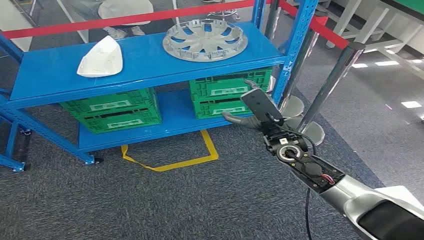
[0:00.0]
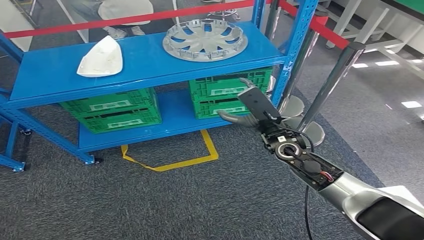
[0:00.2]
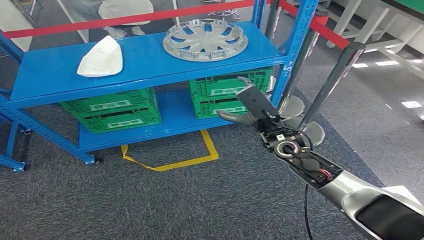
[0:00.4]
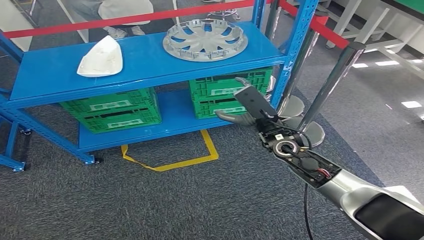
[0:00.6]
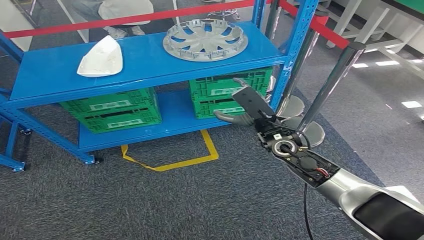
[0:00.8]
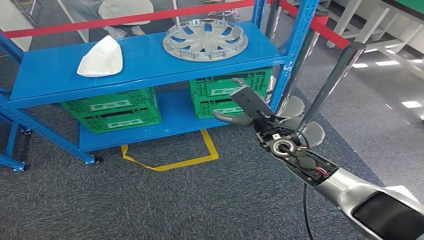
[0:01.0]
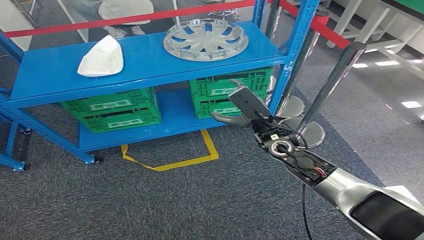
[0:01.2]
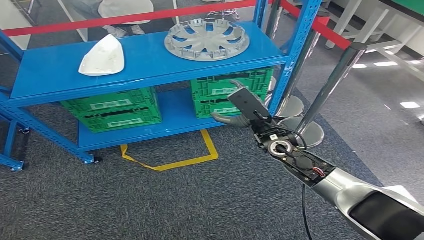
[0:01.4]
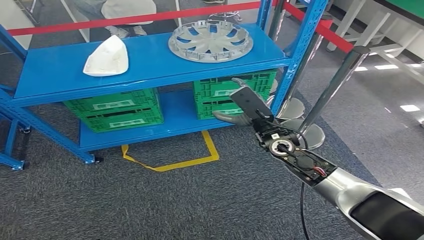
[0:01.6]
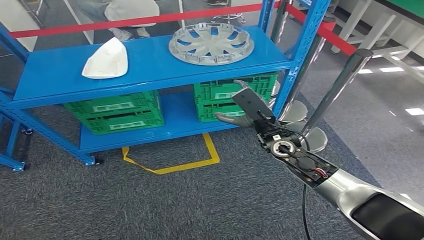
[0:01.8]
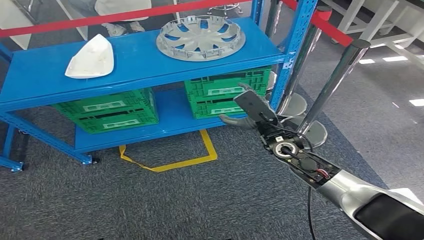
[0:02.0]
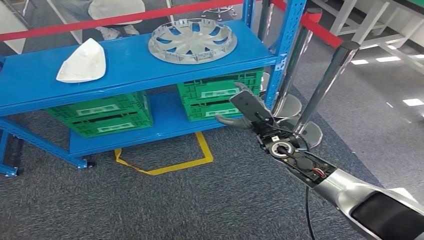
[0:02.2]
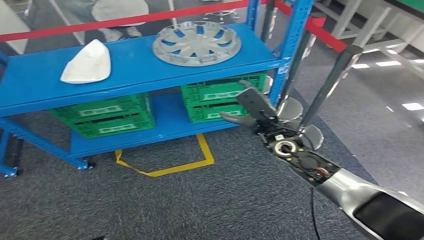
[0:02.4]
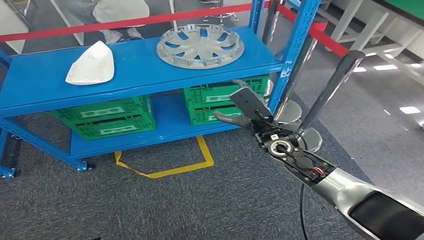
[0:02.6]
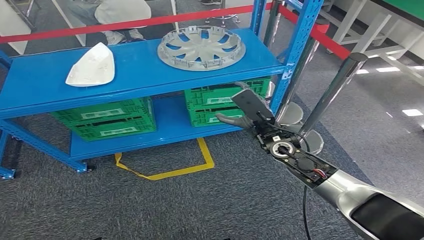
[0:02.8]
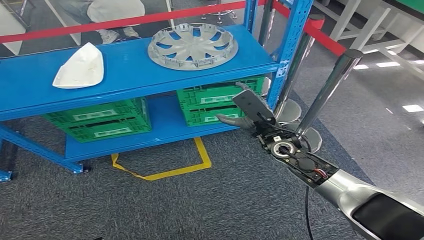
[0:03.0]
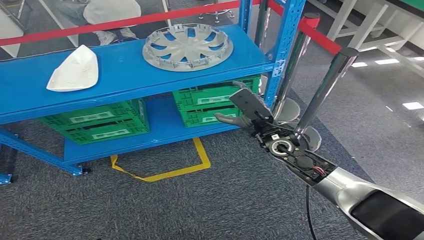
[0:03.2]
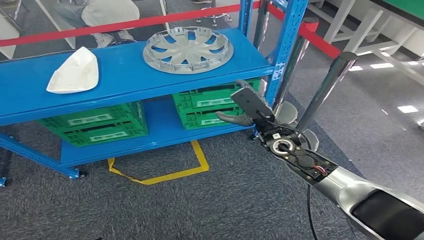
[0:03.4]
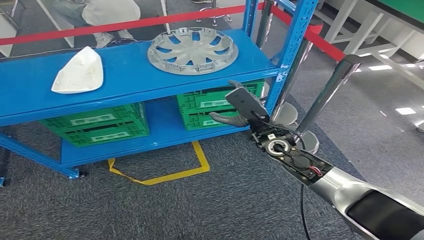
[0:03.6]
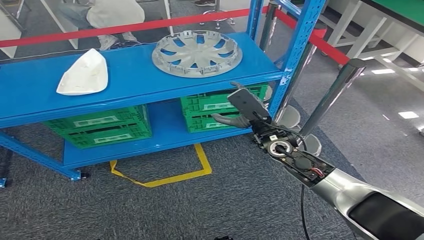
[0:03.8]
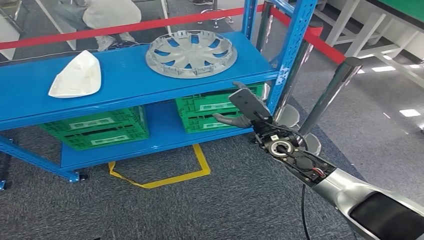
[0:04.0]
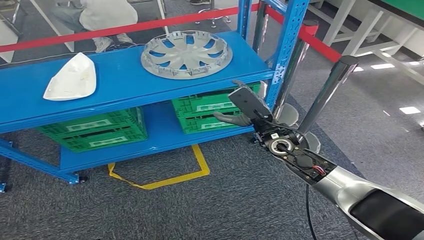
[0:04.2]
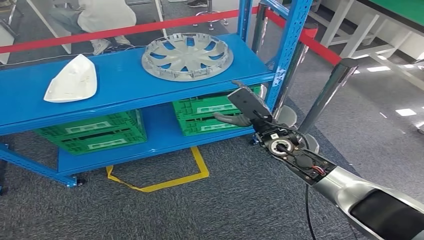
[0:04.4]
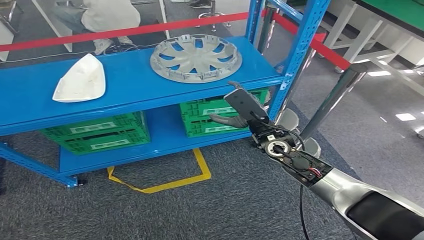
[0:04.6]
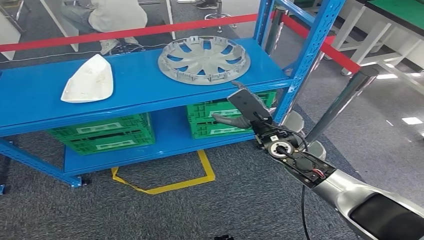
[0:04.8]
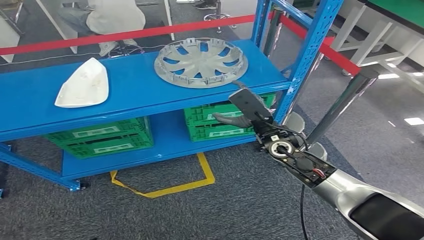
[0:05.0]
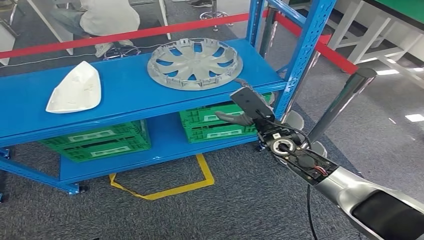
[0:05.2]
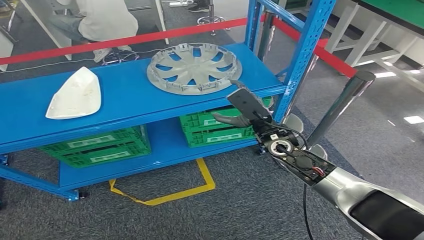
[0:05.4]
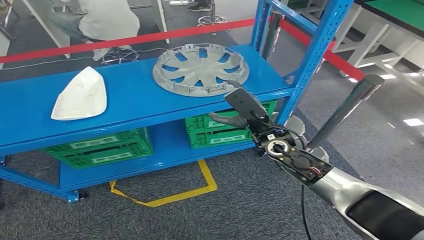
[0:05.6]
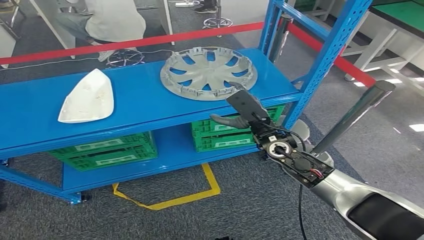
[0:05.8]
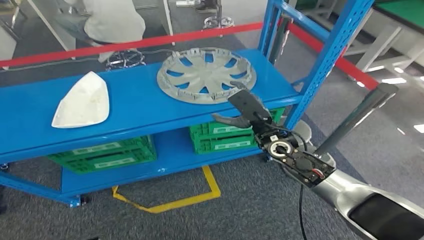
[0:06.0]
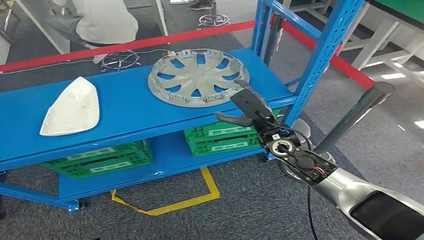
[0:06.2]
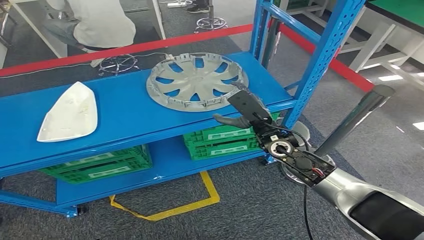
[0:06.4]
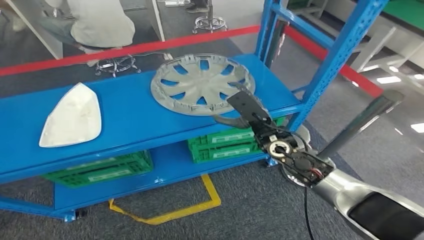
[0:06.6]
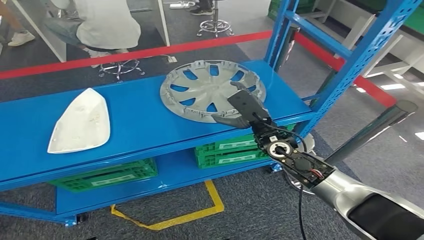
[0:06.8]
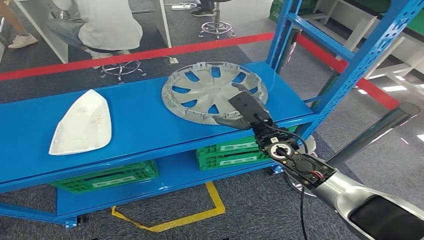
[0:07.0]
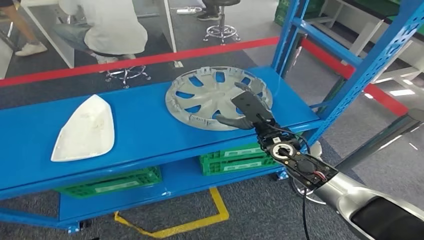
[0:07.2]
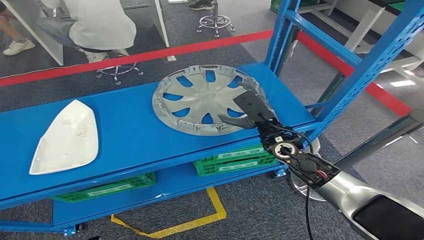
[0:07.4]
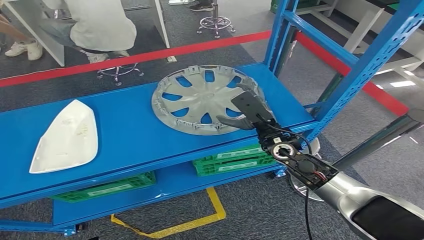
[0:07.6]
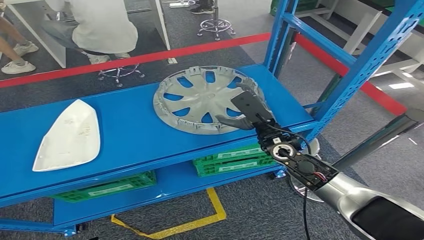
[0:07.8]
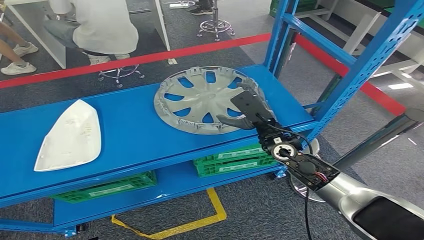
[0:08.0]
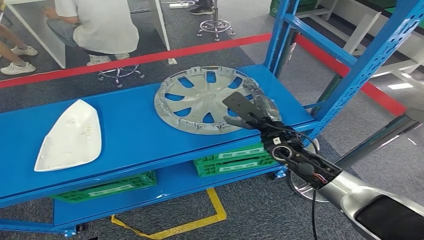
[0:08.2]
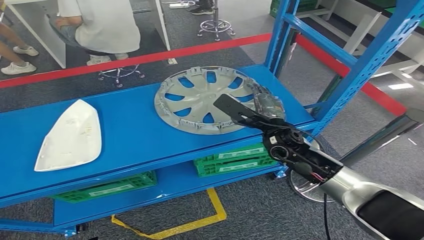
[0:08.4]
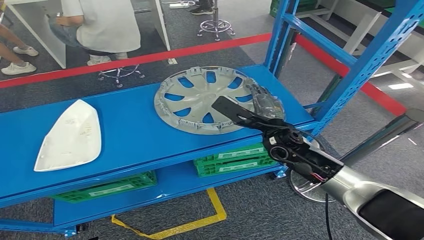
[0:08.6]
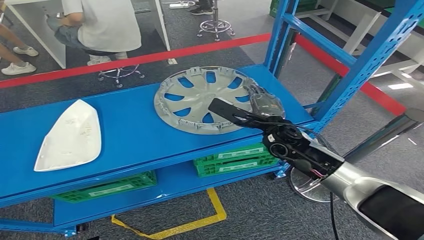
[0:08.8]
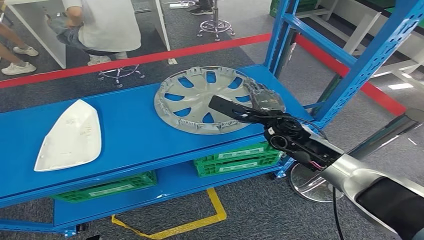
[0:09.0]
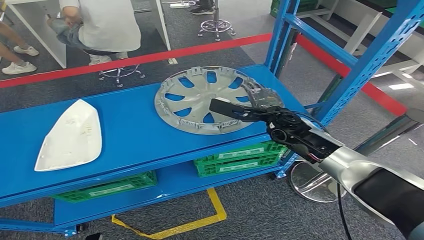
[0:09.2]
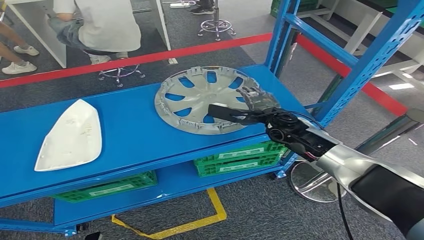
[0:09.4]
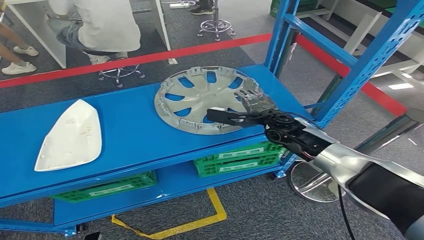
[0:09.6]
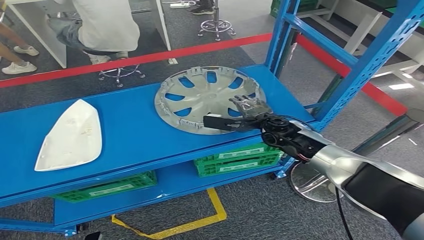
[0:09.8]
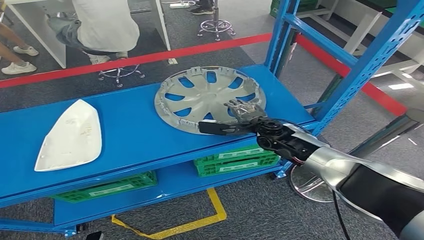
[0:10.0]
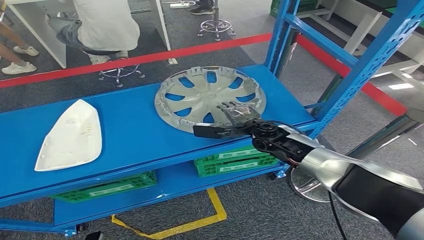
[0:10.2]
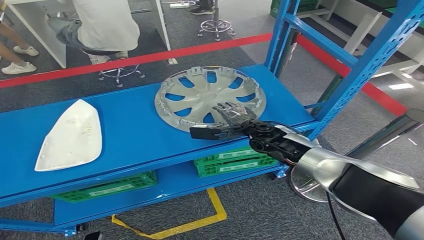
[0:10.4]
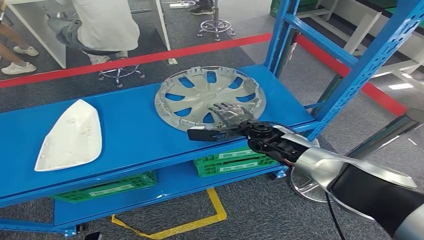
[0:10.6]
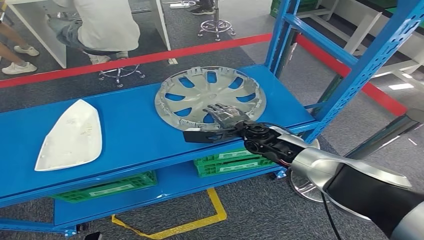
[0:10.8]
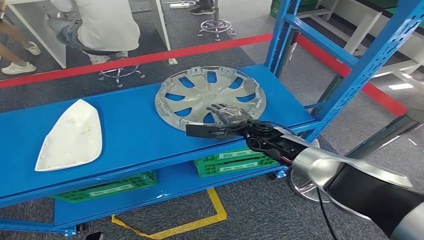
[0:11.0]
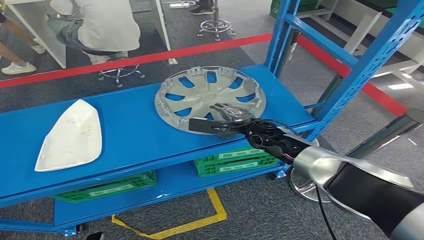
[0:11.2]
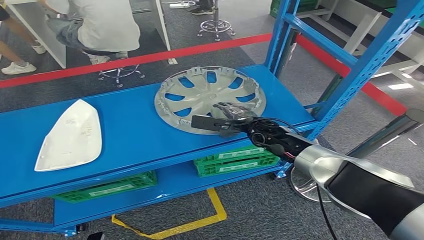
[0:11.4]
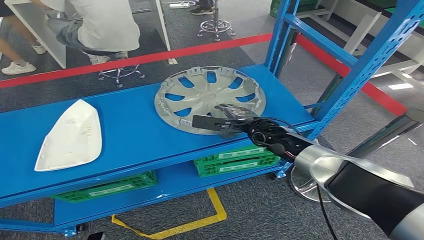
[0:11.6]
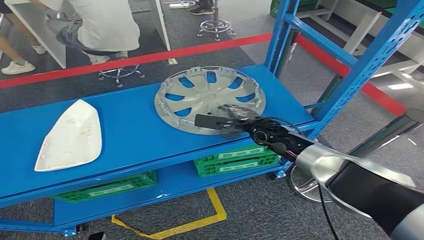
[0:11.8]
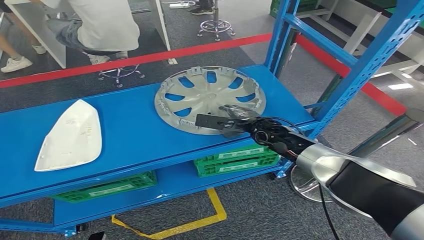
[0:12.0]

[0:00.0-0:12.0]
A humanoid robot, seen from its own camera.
0:09.0 to 0:10.4: The right hand moves roughly 5 cm.
0:10.4 to 0:12.0: The hands stay close to where they were, moving slightly.

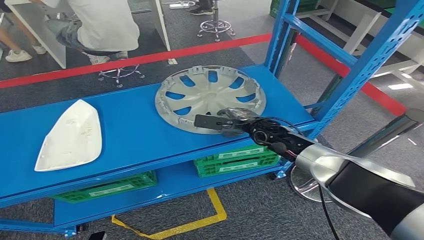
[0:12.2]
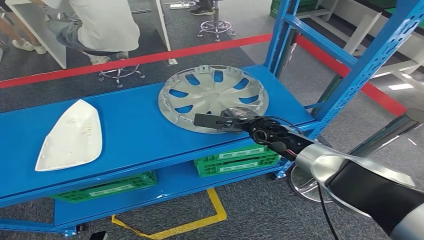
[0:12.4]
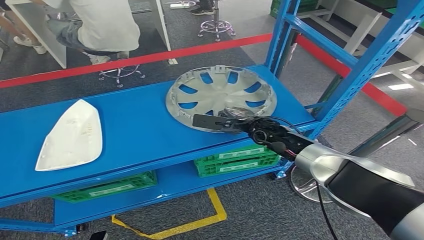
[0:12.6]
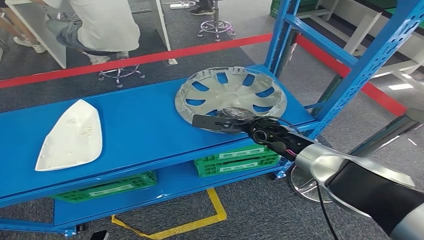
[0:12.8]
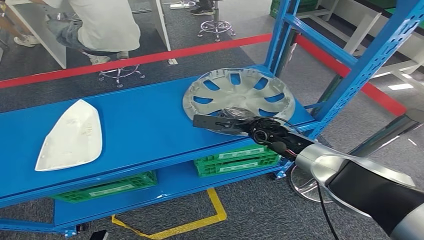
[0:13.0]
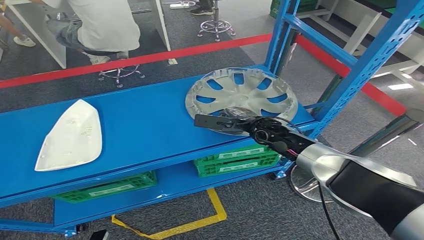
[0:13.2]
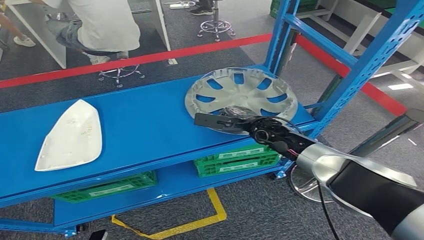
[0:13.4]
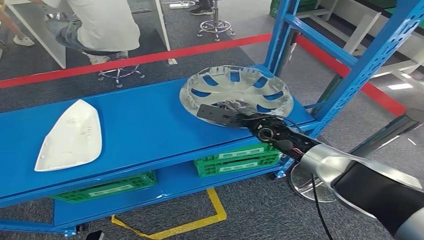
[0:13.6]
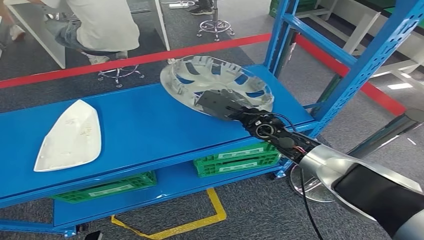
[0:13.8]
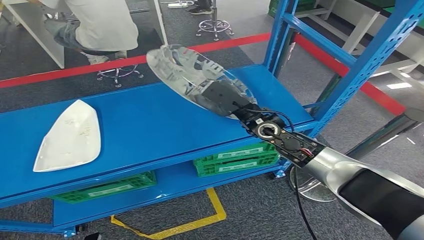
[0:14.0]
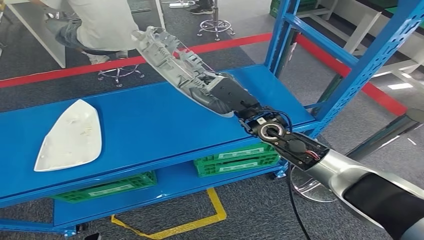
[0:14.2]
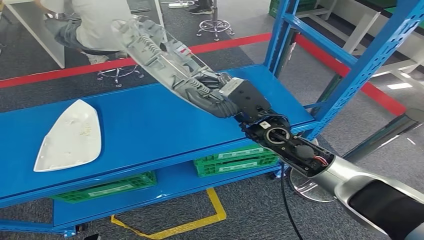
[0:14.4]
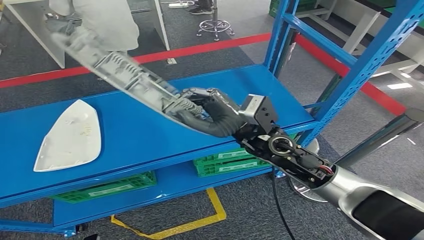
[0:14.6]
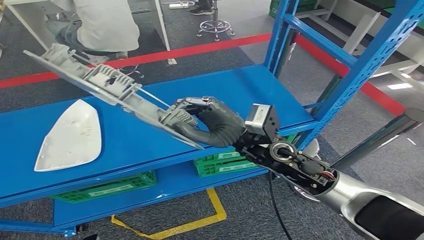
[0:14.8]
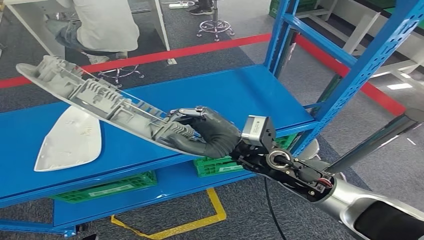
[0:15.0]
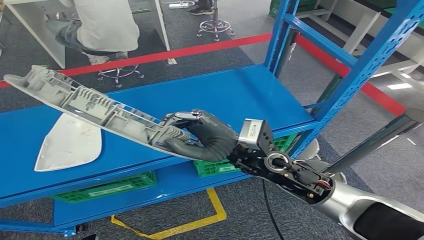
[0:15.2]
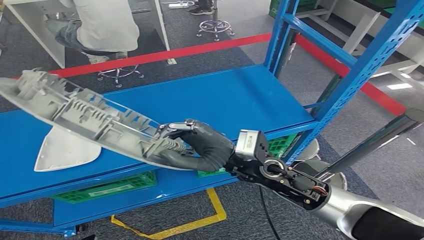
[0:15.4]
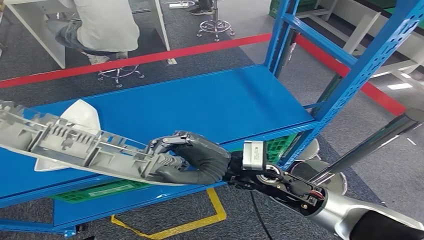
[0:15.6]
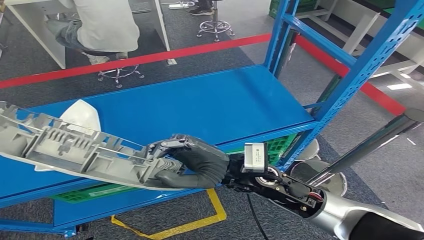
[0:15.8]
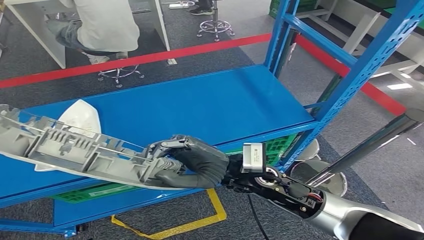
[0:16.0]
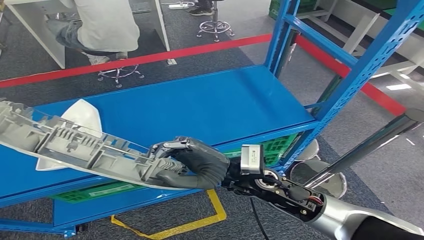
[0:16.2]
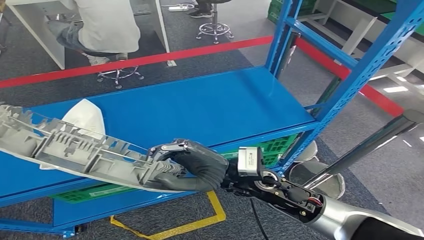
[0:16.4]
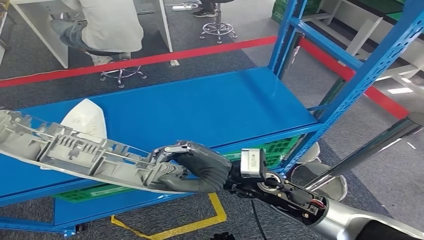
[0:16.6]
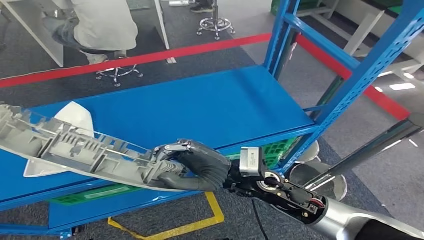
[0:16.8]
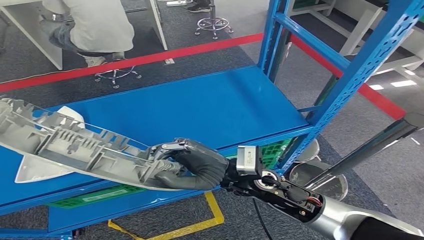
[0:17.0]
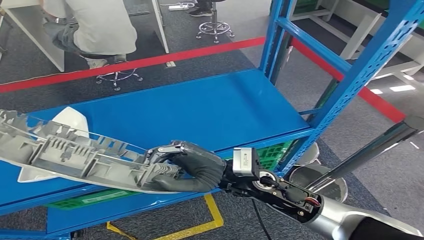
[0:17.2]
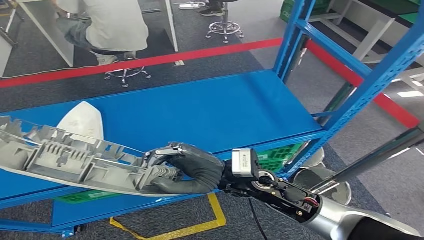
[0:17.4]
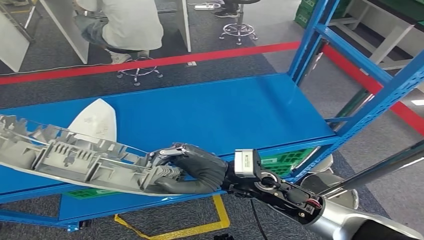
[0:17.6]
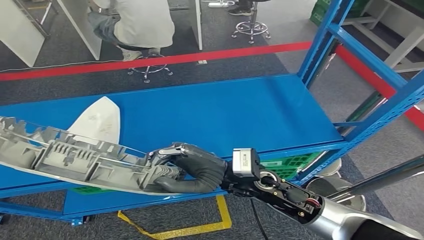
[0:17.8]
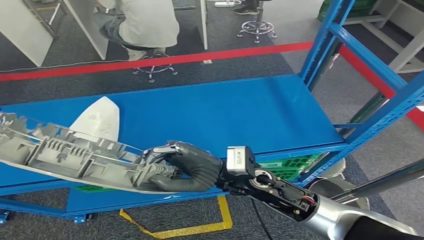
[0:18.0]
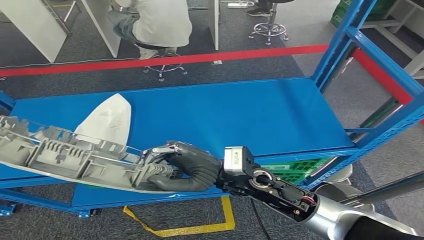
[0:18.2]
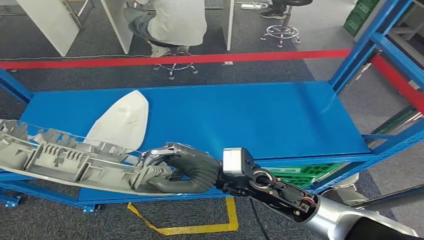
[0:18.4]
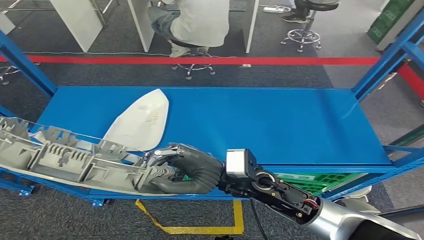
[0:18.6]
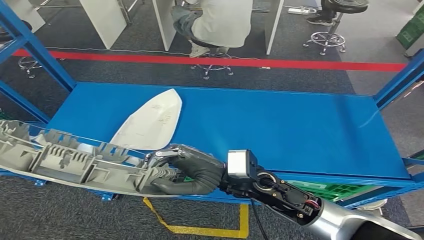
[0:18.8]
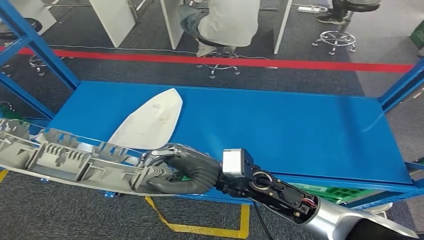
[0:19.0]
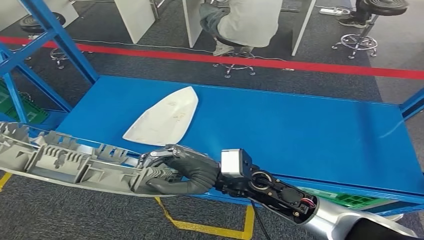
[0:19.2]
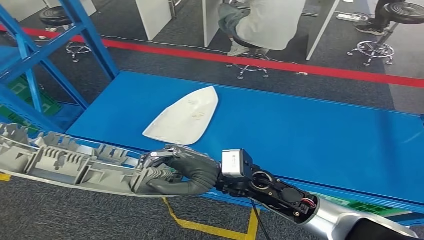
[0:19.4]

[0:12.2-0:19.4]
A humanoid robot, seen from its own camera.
0:12.2 to 0:13.6: The hands move only a little.
